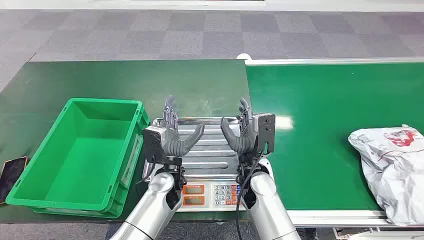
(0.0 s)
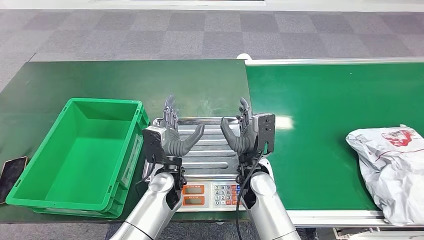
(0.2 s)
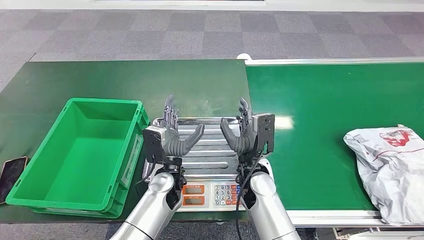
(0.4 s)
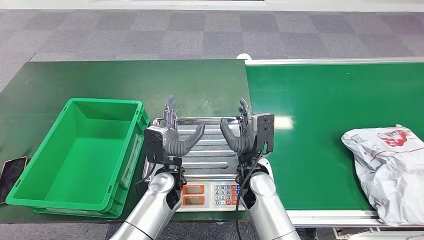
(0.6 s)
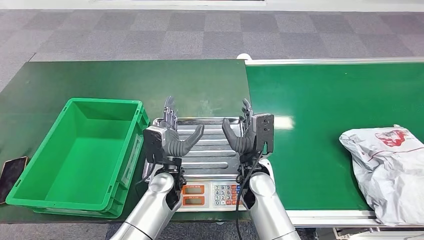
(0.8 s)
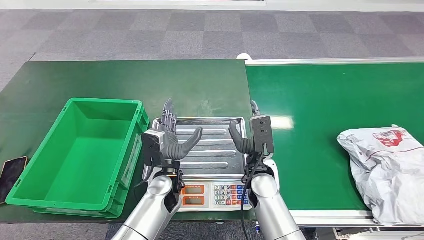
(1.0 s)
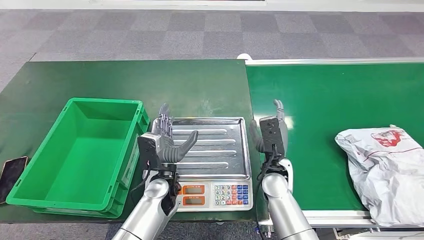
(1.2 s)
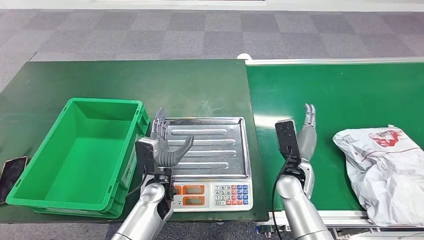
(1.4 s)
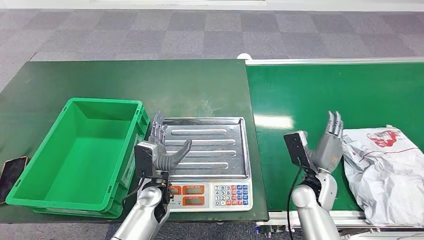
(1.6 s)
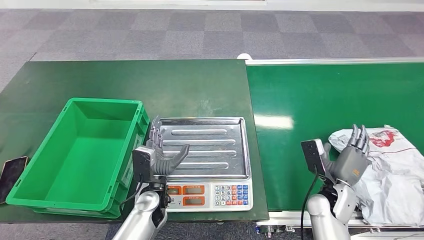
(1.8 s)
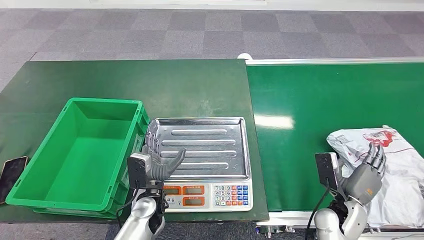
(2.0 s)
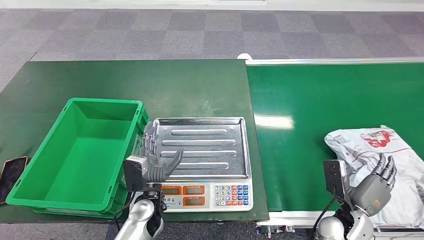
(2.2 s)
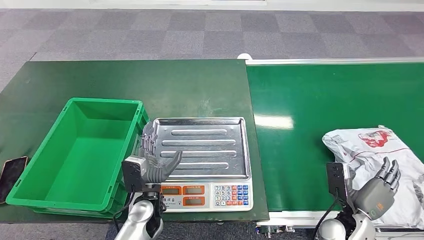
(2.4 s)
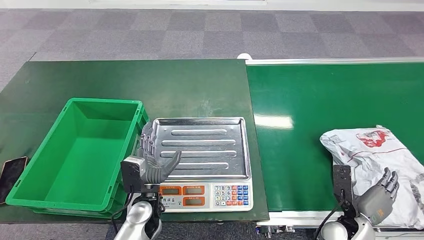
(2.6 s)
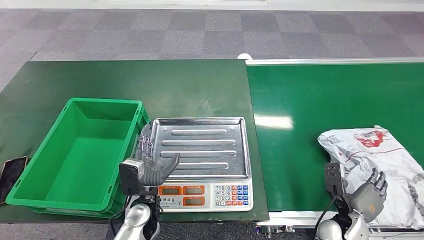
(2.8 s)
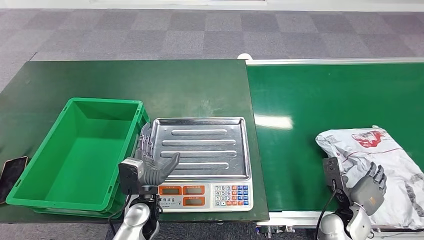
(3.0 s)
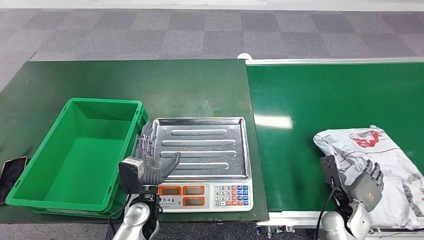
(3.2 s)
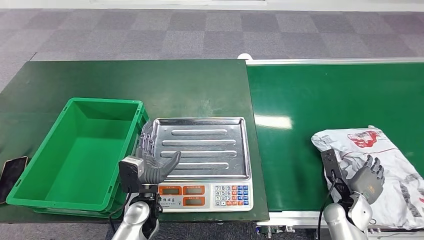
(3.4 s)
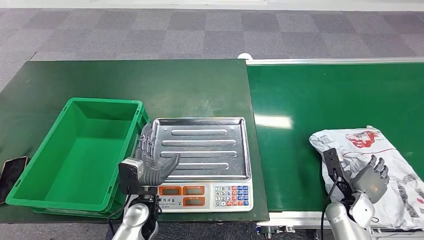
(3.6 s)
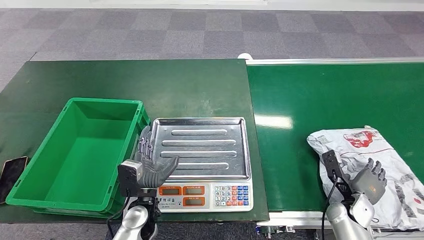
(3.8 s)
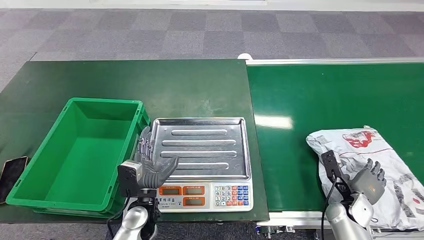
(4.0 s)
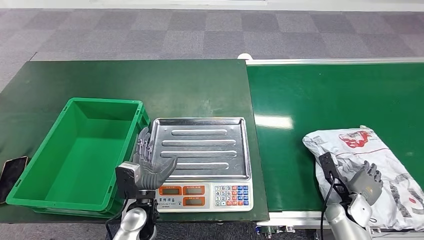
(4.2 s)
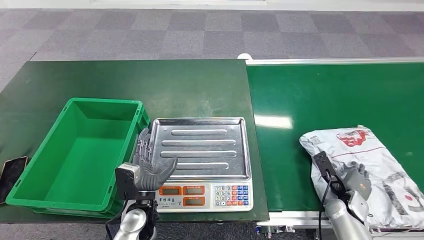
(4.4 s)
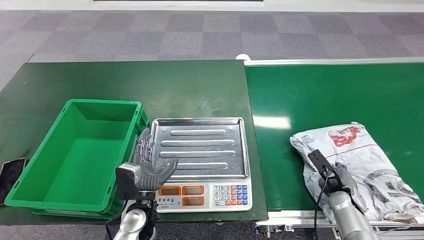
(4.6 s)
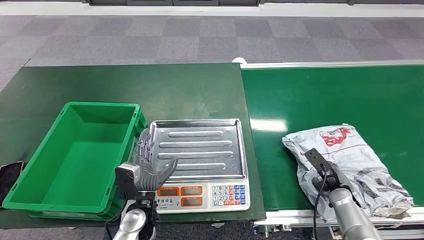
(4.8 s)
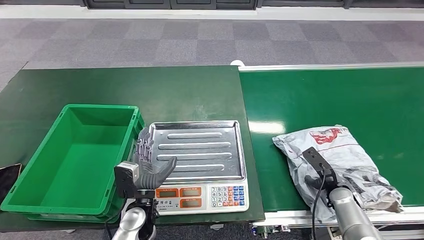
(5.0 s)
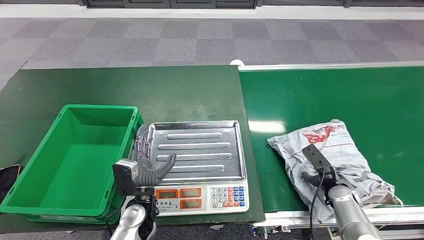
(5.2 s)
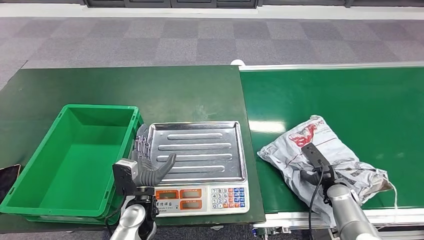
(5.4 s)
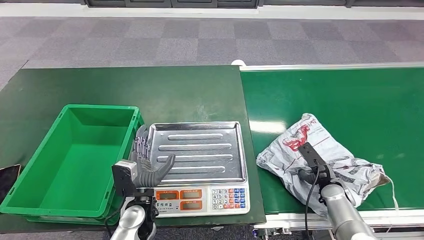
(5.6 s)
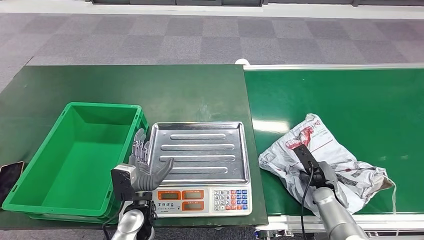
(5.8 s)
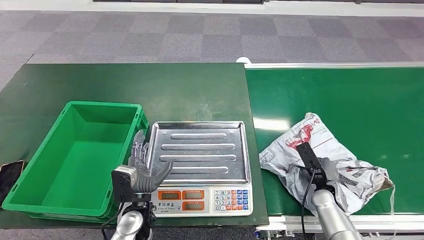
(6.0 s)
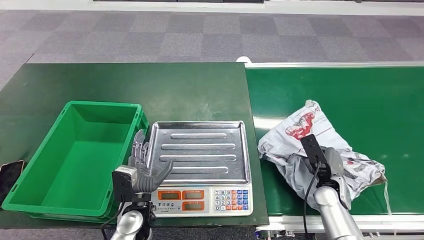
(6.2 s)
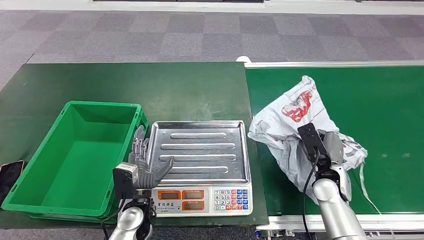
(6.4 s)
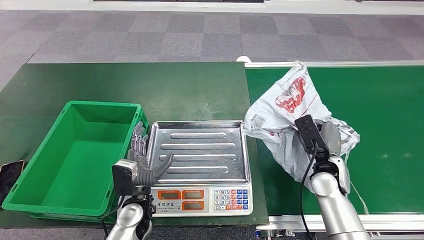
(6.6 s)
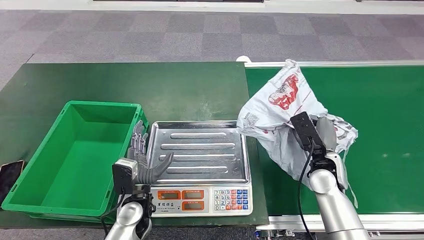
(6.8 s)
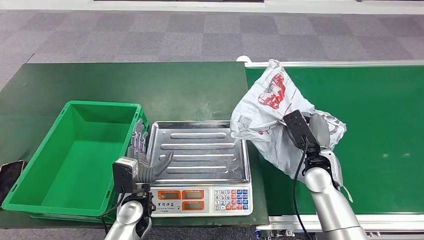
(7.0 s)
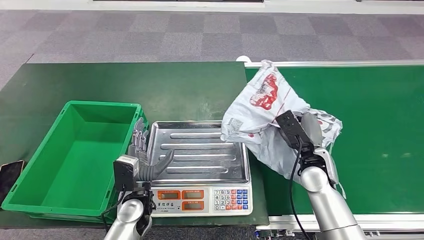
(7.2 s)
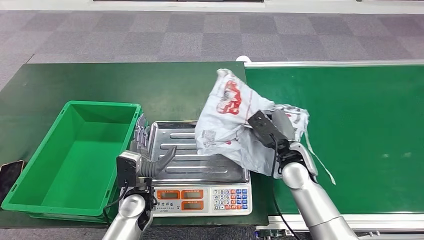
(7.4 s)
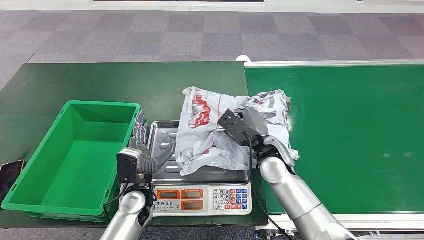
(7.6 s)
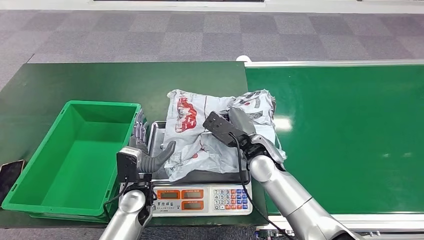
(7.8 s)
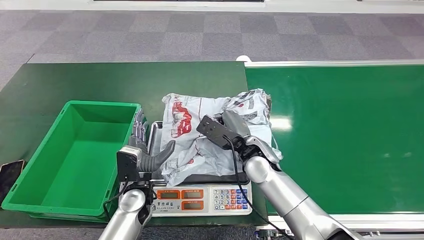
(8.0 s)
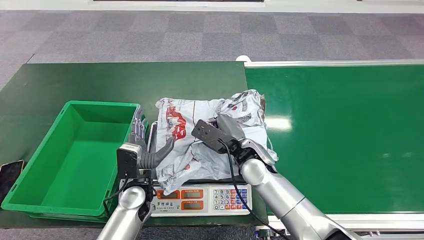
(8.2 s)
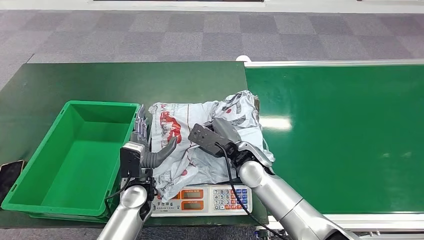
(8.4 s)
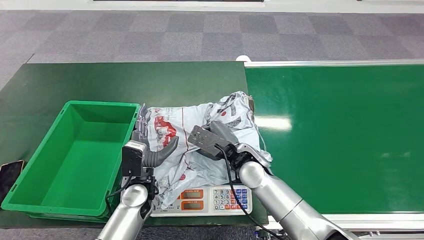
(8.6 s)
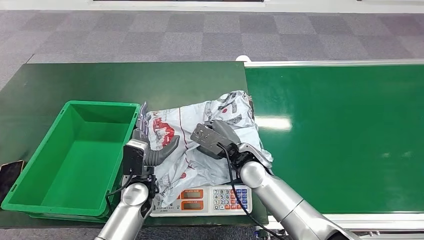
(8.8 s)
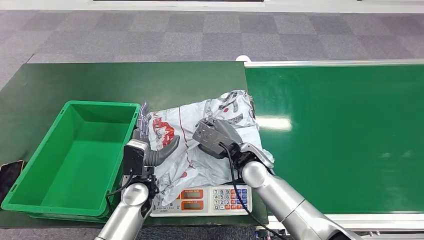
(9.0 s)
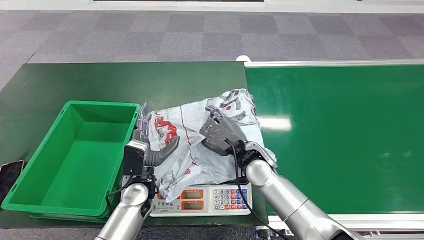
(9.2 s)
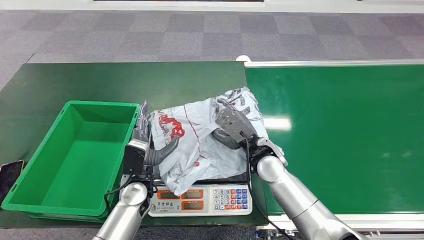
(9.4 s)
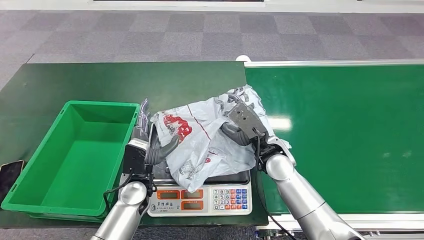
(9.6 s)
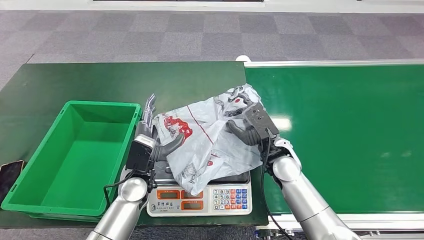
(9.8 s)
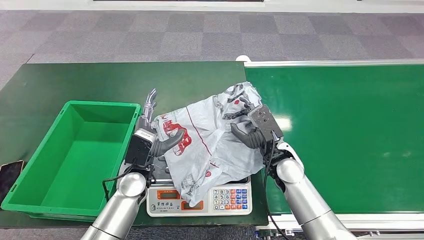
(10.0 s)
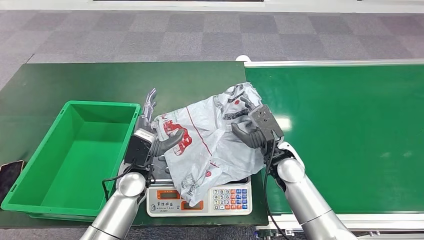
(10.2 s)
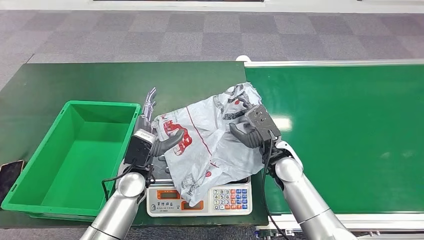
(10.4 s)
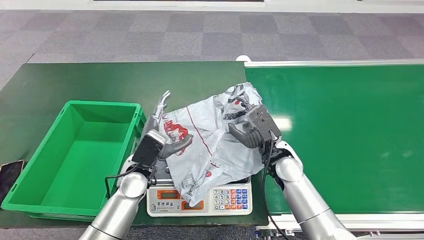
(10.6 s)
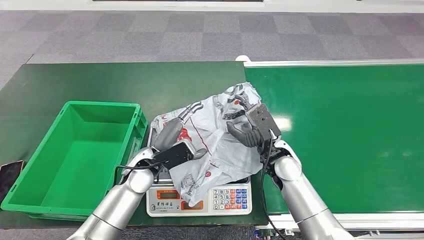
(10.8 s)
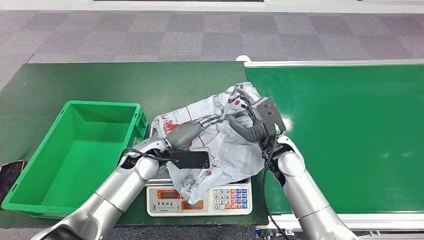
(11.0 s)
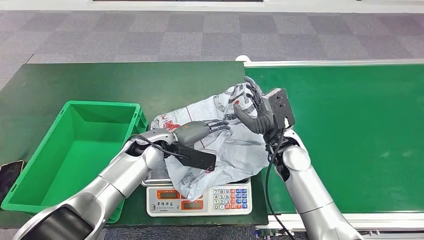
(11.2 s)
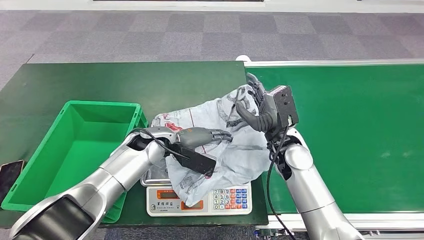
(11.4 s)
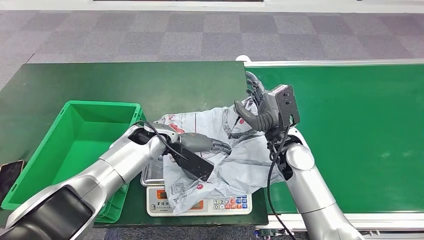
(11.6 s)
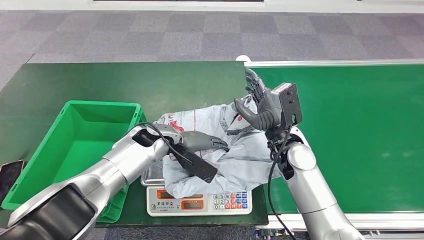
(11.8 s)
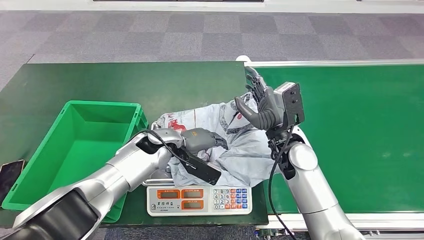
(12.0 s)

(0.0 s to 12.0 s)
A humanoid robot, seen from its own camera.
Step, 0.0 s - 6.6 s: Pick up the package from the conveyor belt.
Step, 6.8 s - 10.8 s: Place the package onto the inbound machine.
1.6 s - 3.0 s: The right hand heads to the right, backward and downward, covering some 15 cm.
3.0 s - 4.4 s: The right hand shifts by about 5 cm.
7.6 s - 9.0 s: The right hand changes place by about 5 cm.
9.0 s - 10.4 s: The right hand heads to the right, covering about 5 cm.

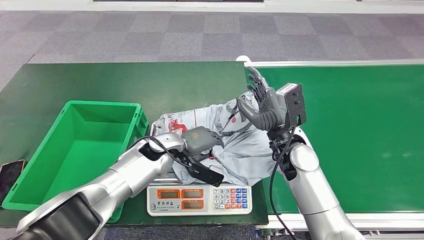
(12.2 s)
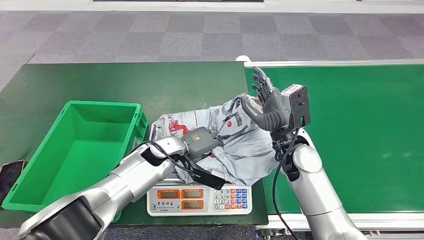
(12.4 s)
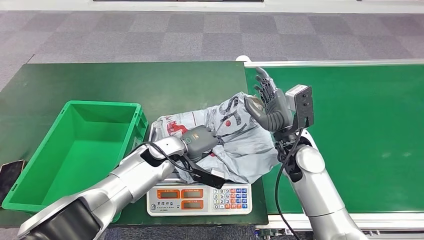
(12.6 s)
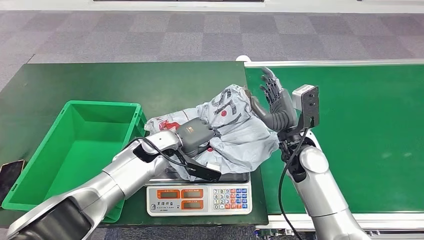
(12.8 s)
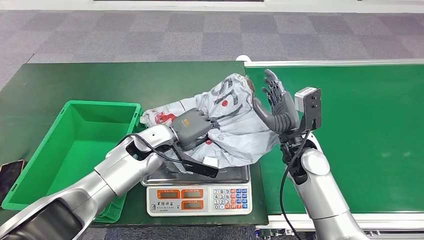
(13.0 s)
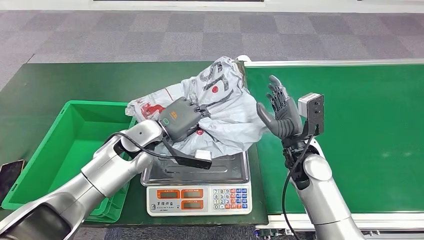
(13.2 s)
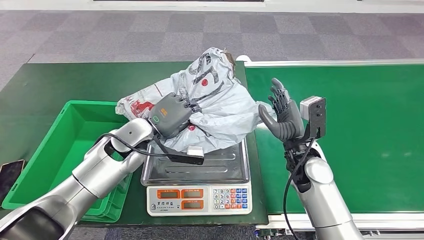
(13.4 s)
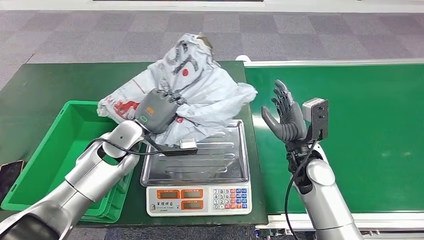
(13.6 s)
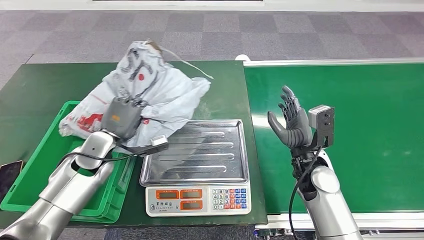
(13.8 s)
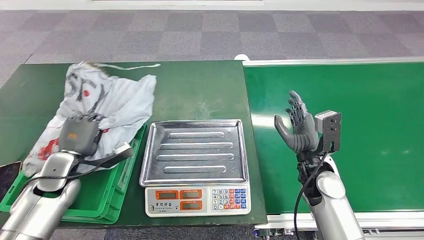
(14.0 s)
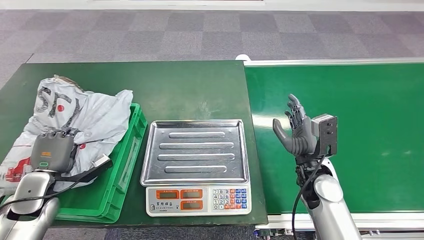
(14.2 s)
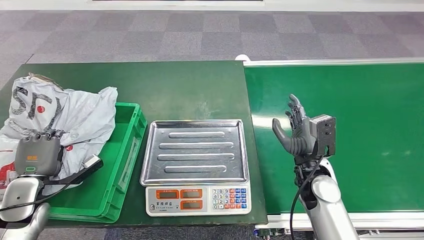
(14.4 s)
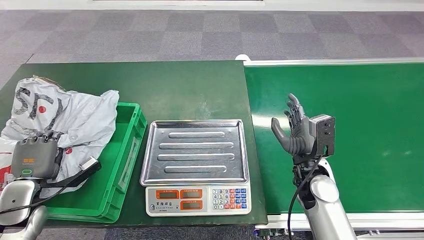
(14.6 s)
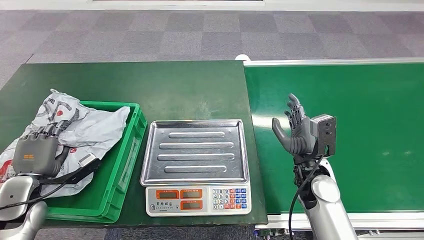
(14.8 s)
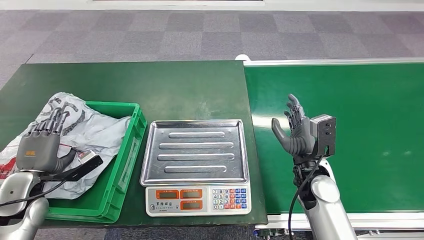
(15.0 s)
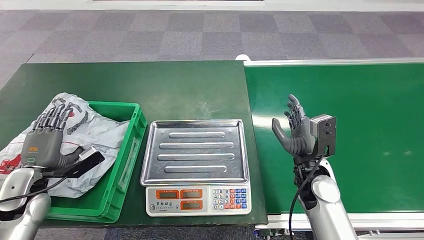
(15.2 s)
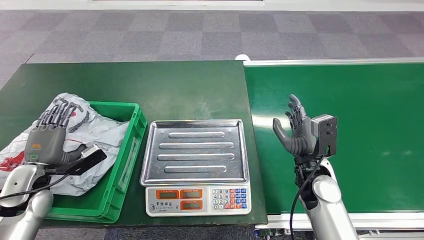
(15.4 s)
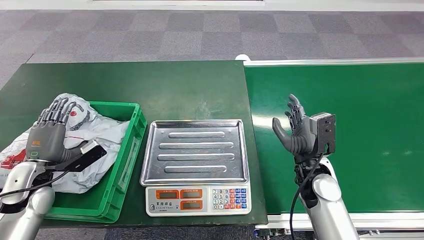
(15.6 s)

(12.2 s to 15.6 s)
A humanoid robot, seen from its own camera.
Step, 12.2 s - 13.6 s: Pick up the package from the inbound machine.
Step, 13.8 s - 15.6 s: Place the package into the parcel locker.
